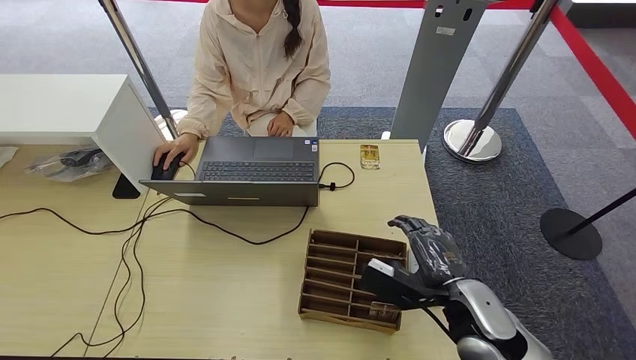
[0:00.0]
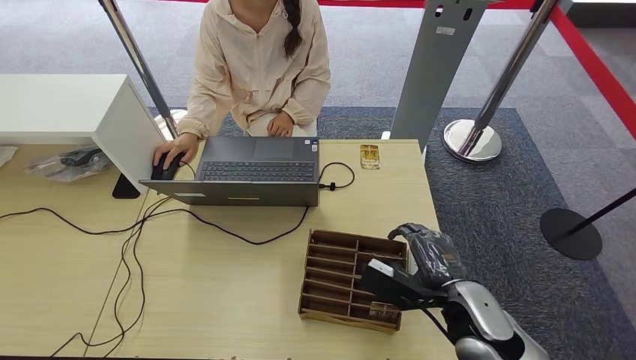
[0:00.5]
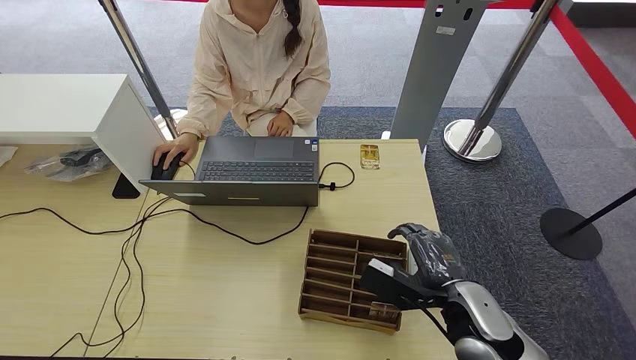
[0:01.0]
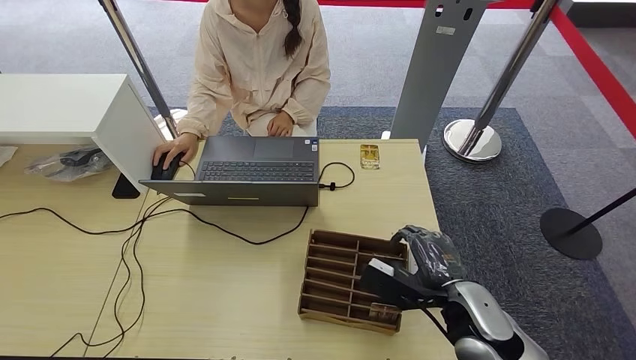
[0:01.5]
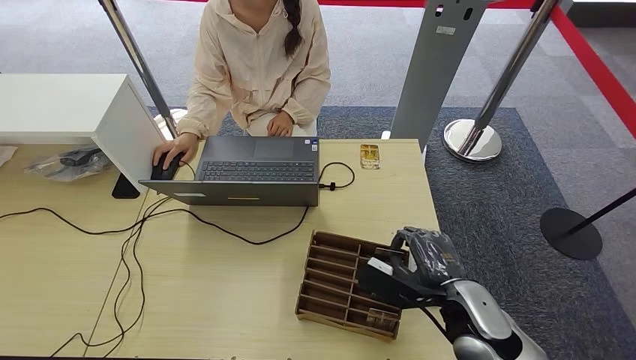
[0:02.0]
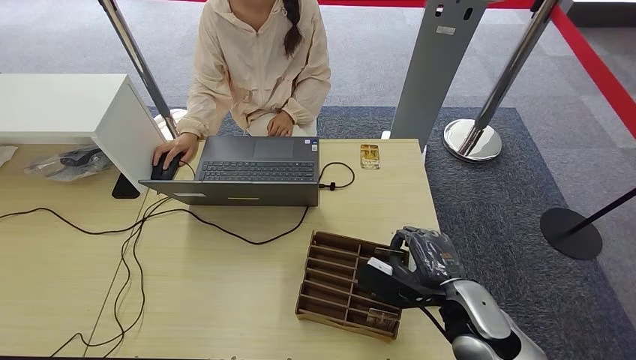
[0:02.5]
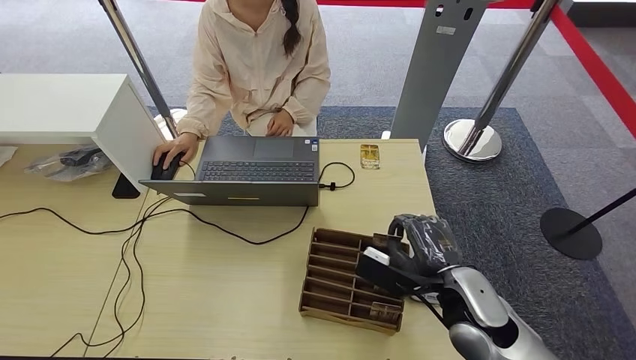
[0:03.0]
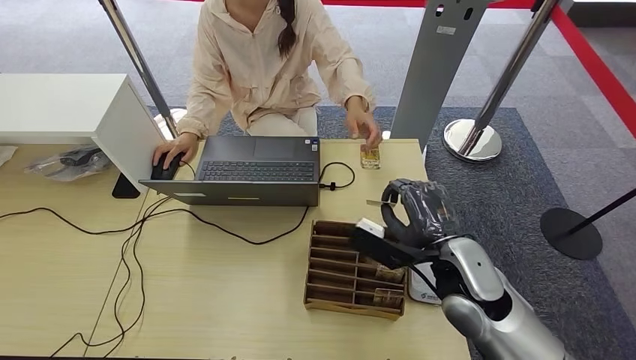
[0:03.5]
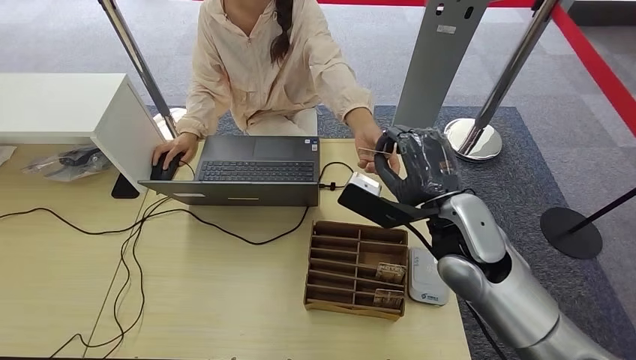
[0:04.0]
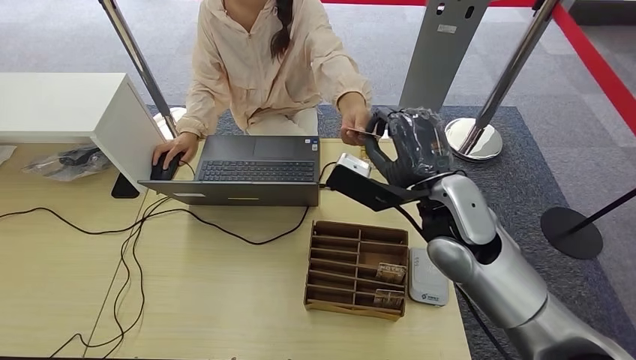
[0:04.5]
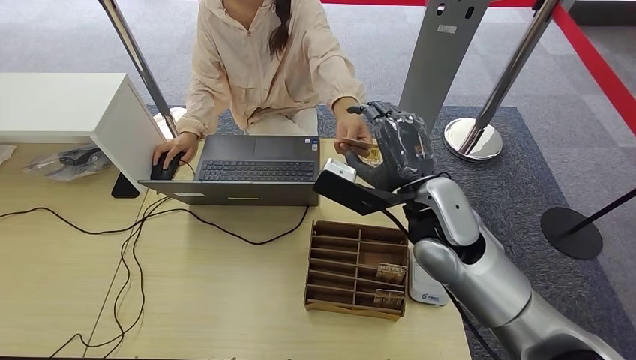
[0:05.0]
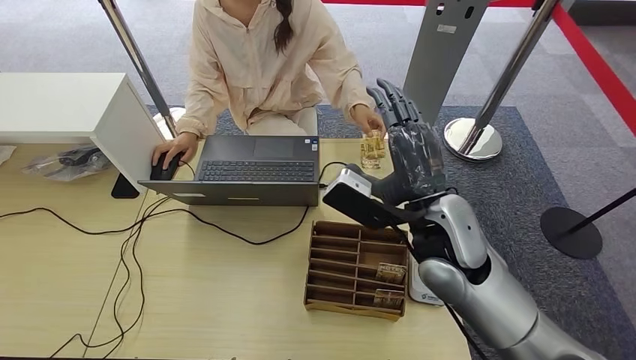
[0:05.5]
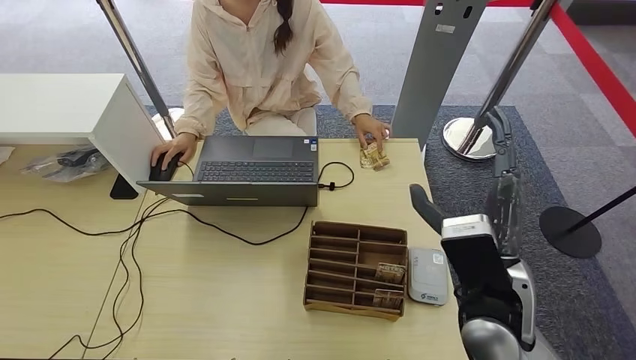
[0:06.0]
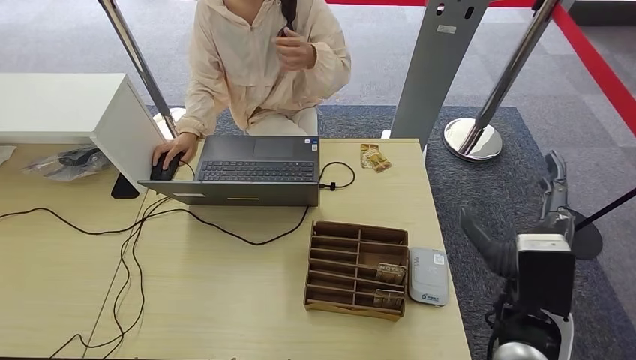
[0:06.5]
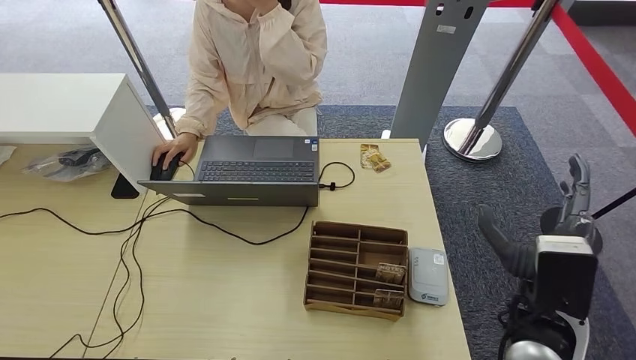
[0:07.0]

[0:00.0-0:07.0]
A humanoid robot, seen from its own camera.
Step, 0:00.0 to 0:03.5: Pick up the room key from the key card box.
Step, 0:04.0 to 0:07.0: Hand the room key to the person.
0:00.0 to 0:02.0: Both hands stay put.
0:02.0 to 0:03.5: The right hand goes approximately 5 cm upward and forward.
0:03.5 to 0:05.0: The right hand travels upward, forward and to the left by roughly 10 cm.
0:05.0 to 0:07.0: The right hand travels backward, to the right and downward by some 20 cm.
